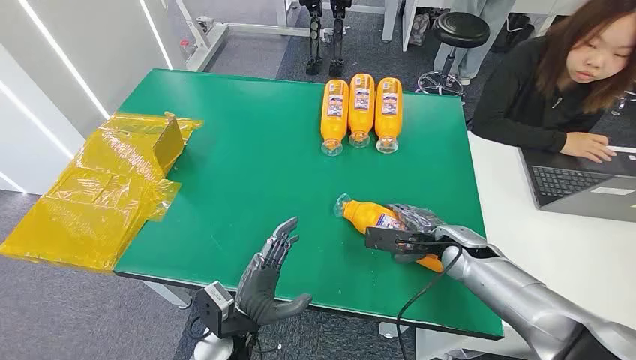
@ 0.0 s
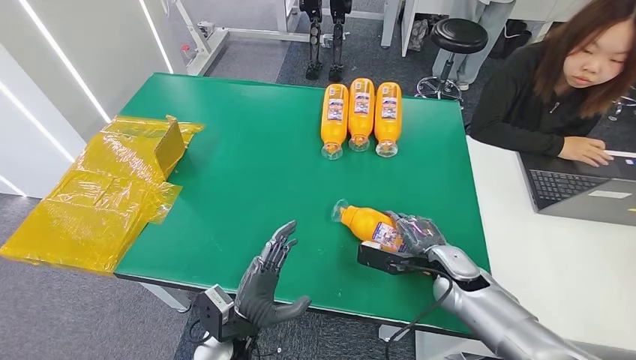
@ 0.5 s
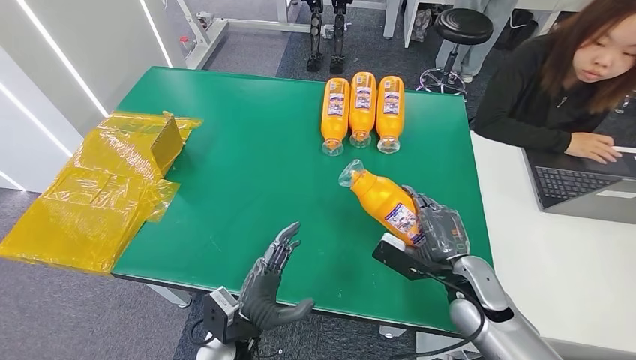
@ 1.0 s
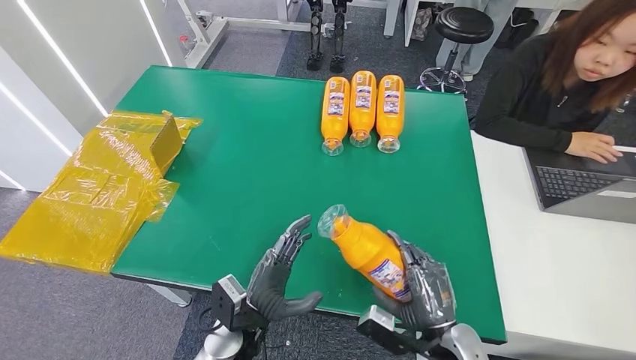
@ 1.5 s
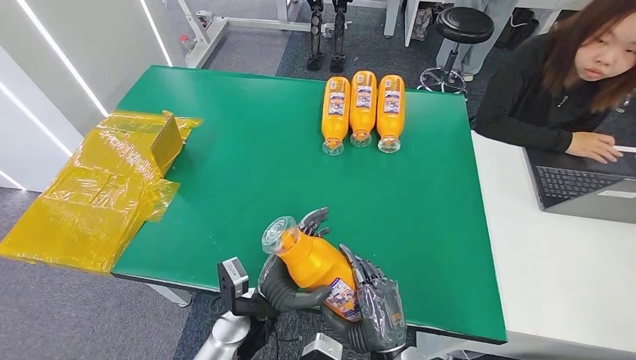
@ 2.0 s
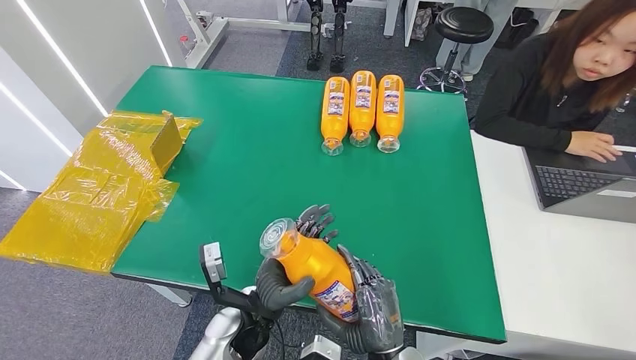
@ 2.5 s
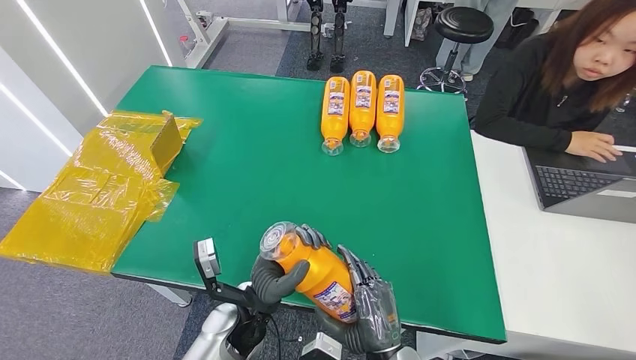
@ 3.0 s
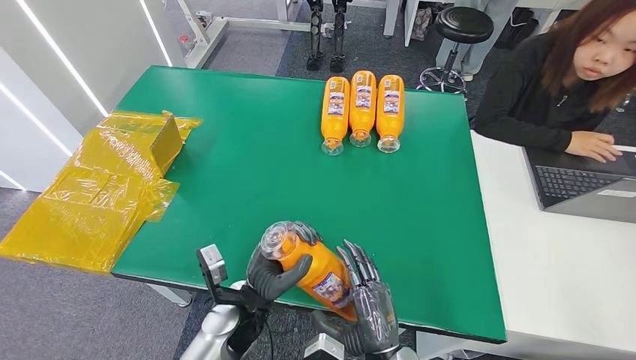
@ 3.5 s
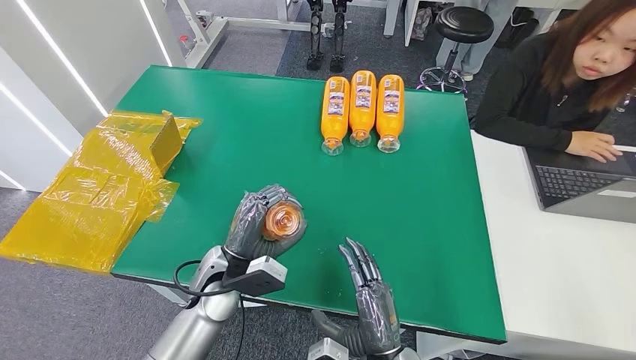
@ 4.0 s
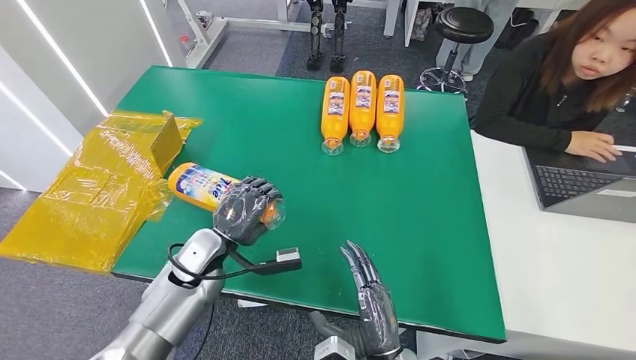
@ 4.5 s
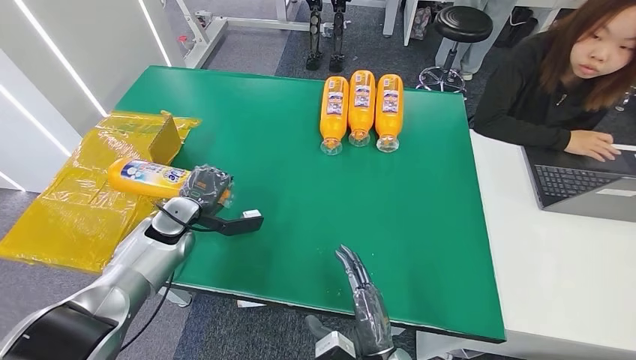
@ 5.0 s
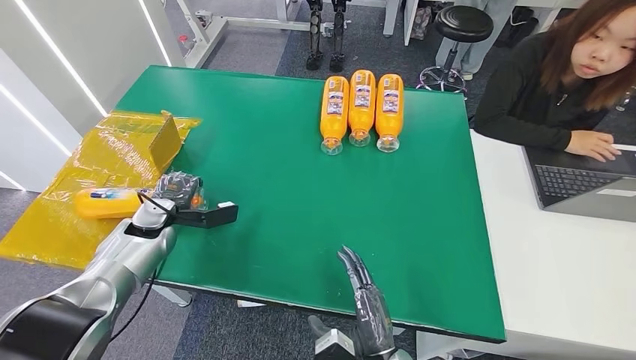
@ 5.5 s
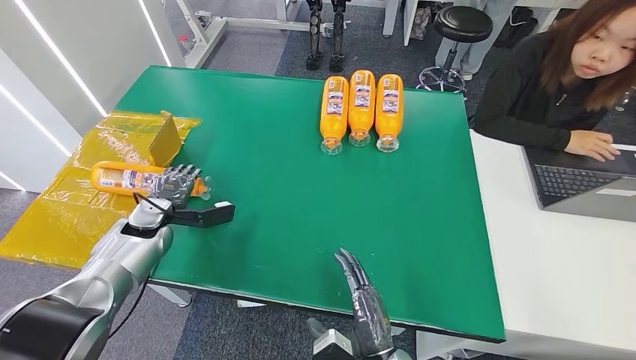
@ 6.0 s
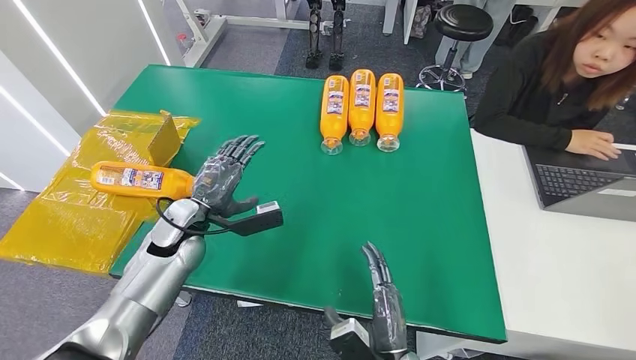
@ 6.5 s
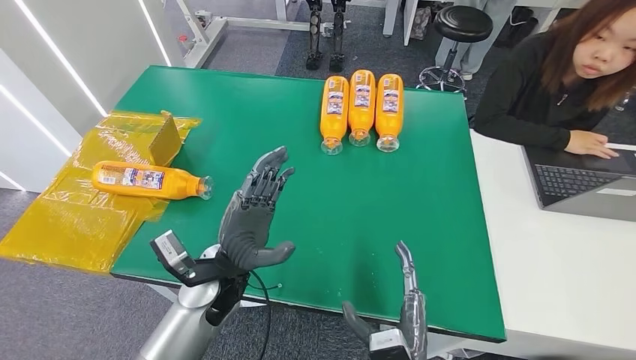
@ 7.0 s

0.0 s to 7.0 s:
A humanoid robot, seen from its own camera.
Step, 0.0 to 2.5 s: Pick up the bottle from the table.
Step, 3.0 to 7.0 s: Turn the bottle to the front side.
3.5 to 5.0 s: The left hand is displaced to the left and forward by some 25 cm.
5.0 to 7.0 s: The left hand travels to the right and backward by approximately 20 cm.
